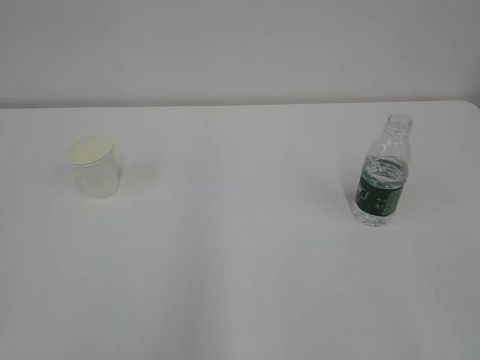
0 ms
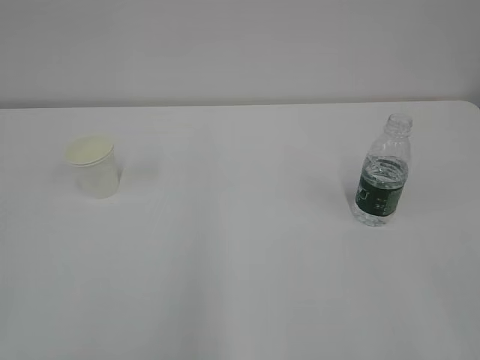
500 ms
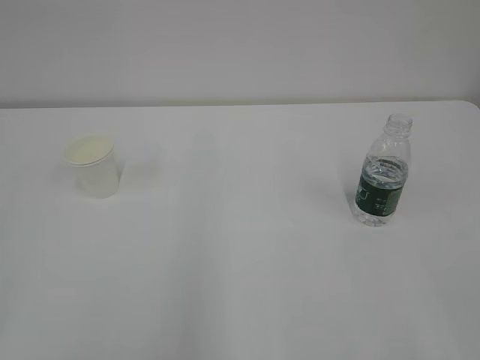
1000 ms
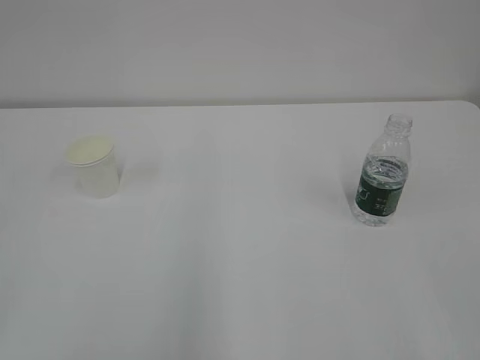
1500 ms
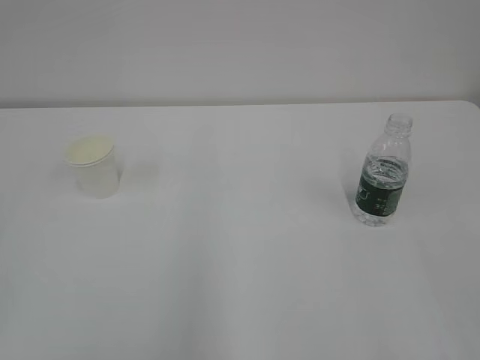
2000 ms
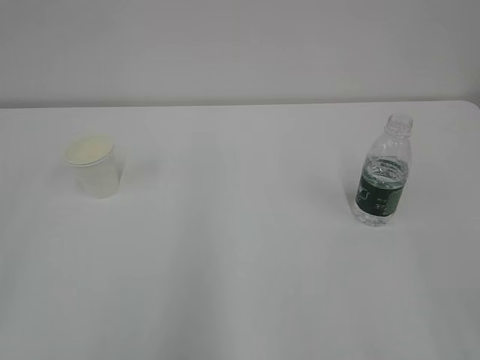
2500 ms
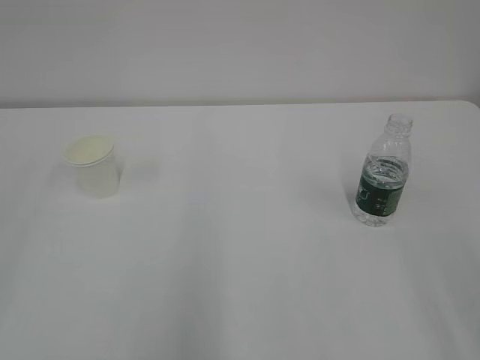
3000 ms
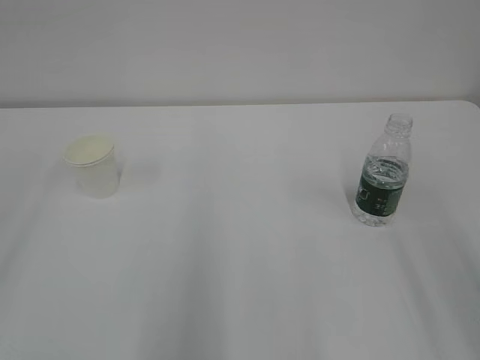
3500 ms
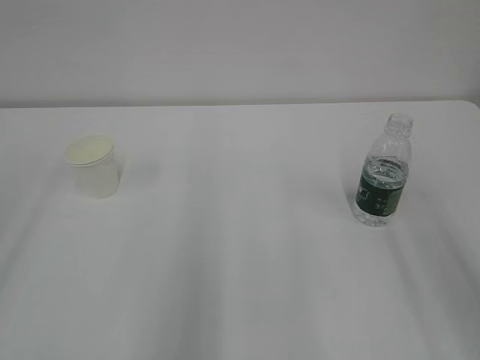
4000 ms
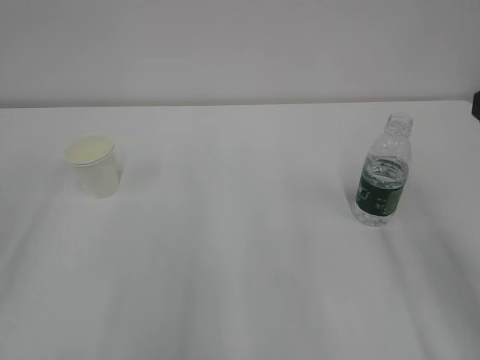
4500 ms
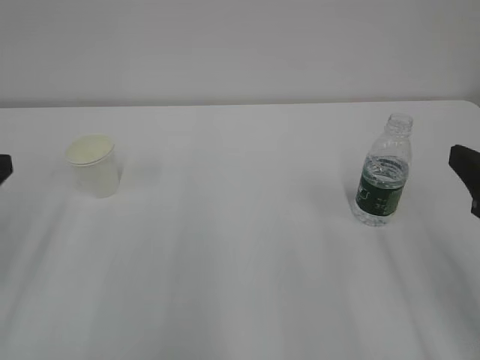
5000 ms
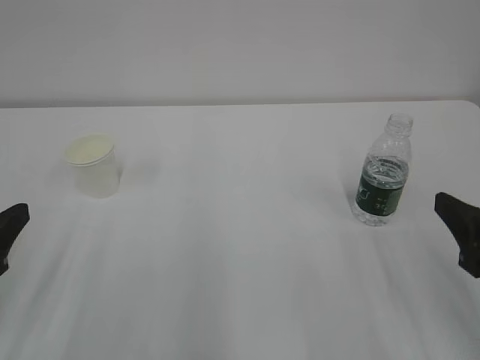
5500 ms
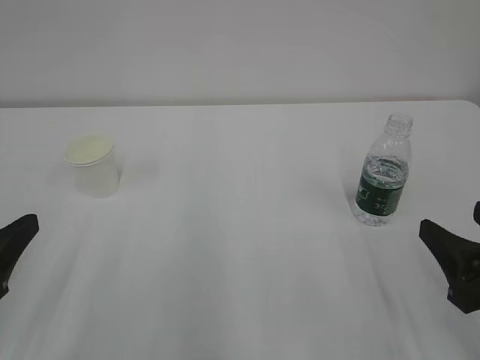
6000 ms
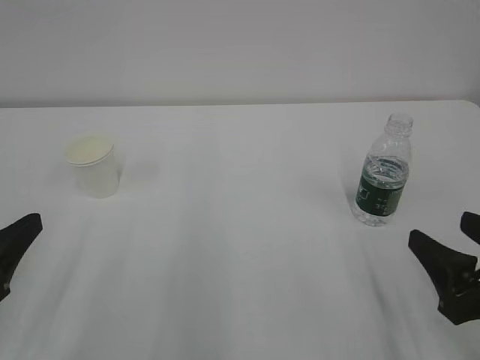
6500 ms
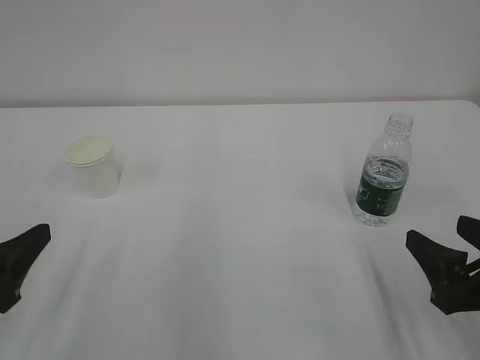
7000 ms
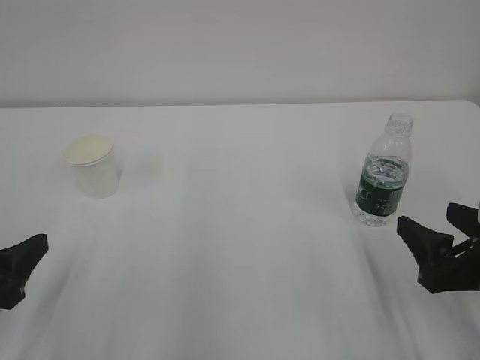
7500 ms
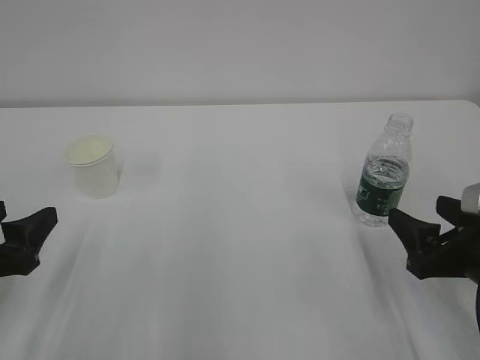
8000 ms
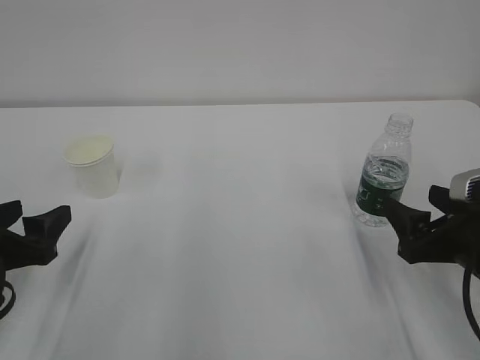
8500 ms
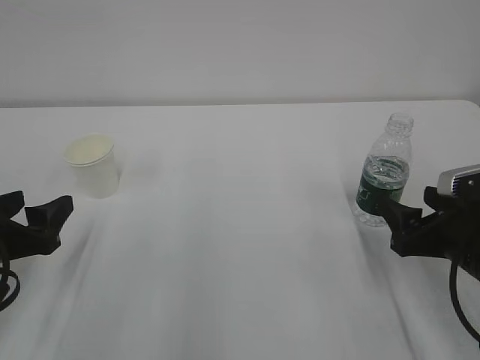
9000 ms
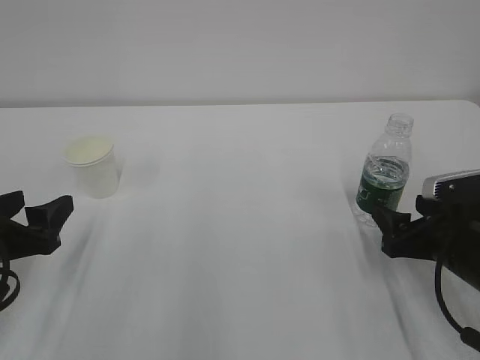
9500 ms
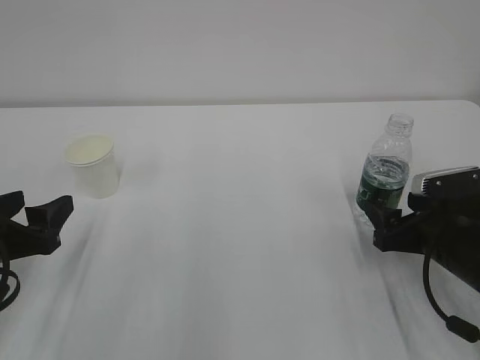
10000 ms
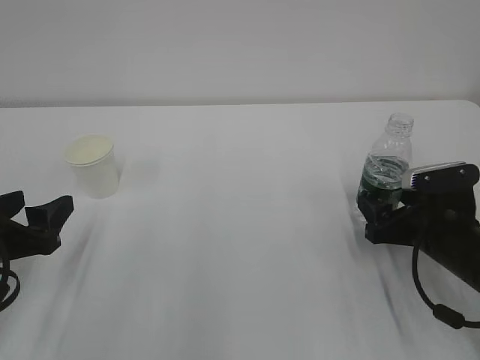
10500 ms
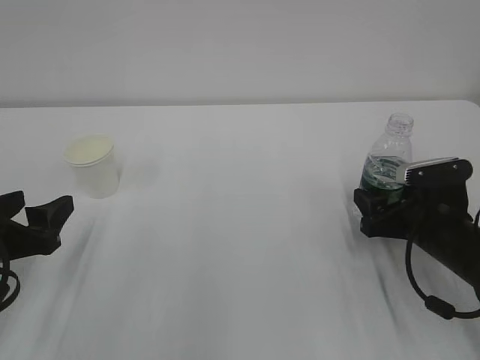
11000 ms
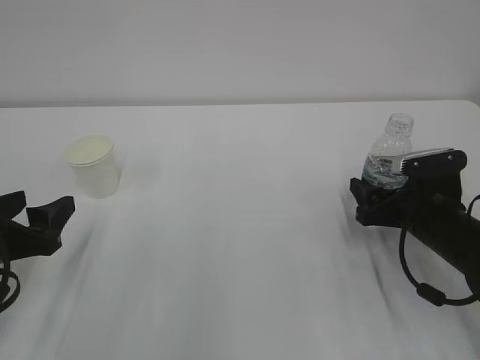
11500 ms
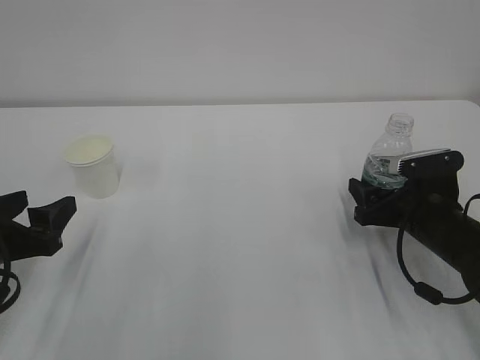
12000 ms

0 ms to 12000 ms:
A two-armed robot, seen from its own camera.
4000 ms to 6000 ms: Both grippers move downward, about 15 cm.
6000 ms to 8000 ms: The right gripper goes some 5 cm forward.
8000 ms to 10000 ms: The right gripper goes some 5 cm forward.
10000 ms to 12000 ms: The grippers move only a little.

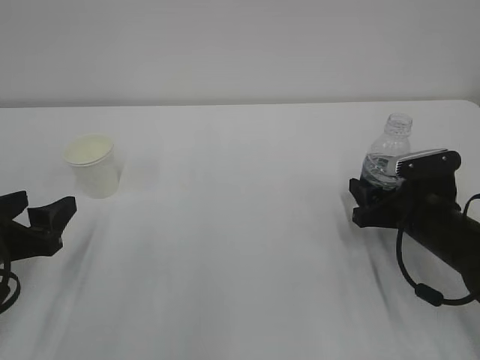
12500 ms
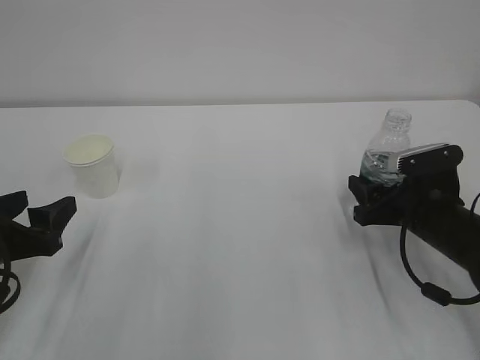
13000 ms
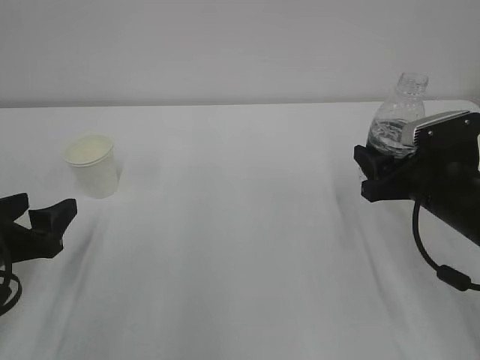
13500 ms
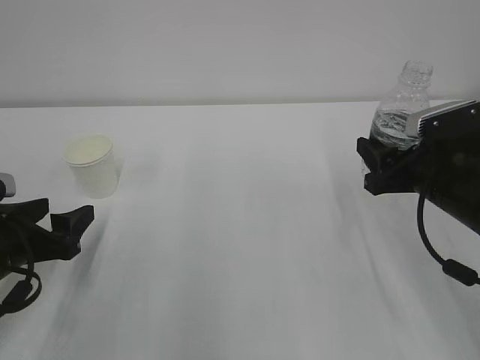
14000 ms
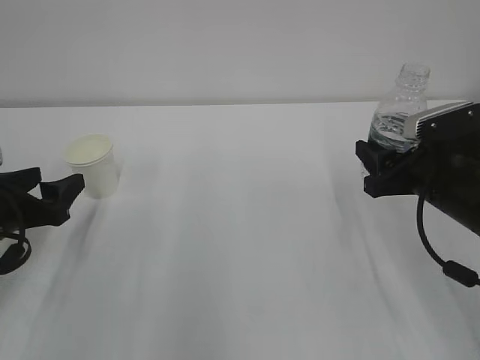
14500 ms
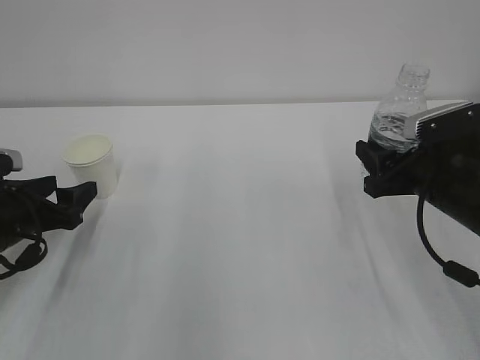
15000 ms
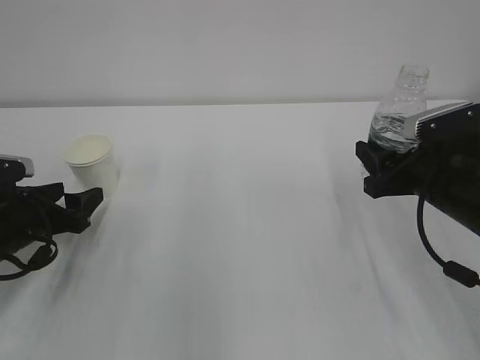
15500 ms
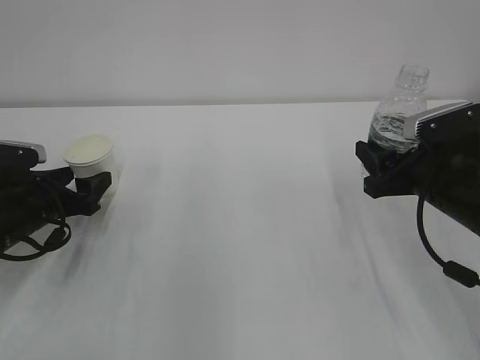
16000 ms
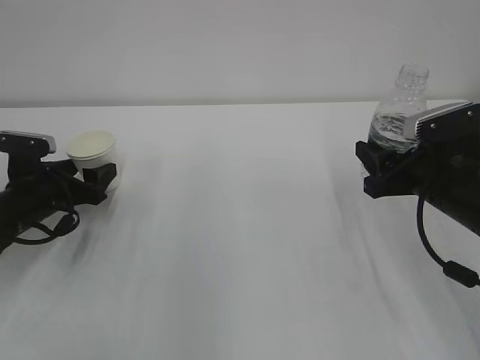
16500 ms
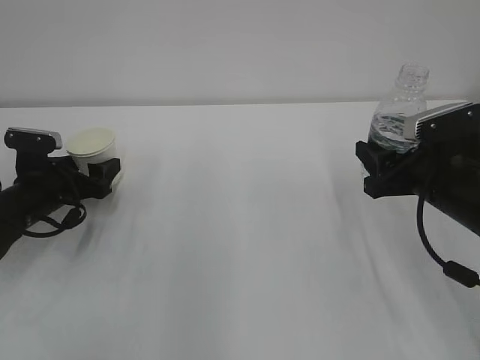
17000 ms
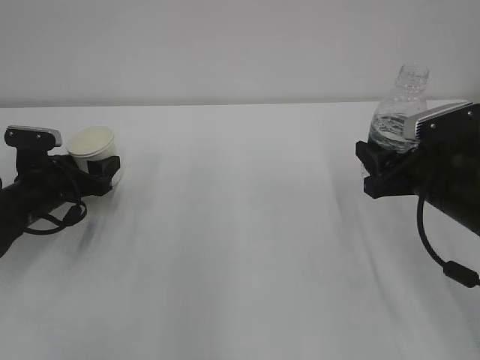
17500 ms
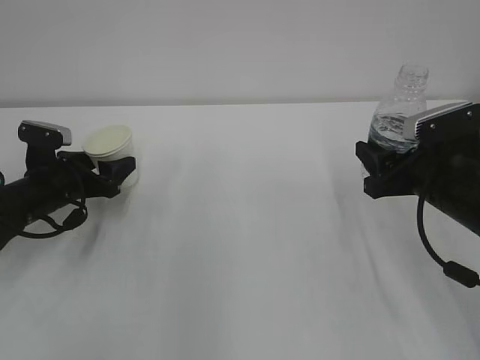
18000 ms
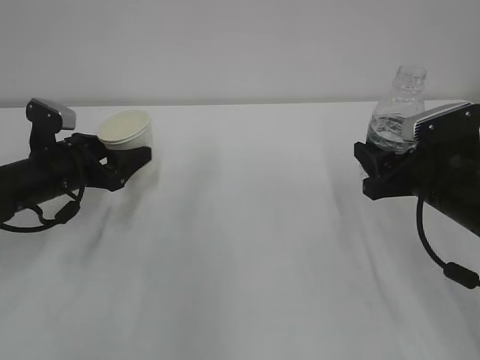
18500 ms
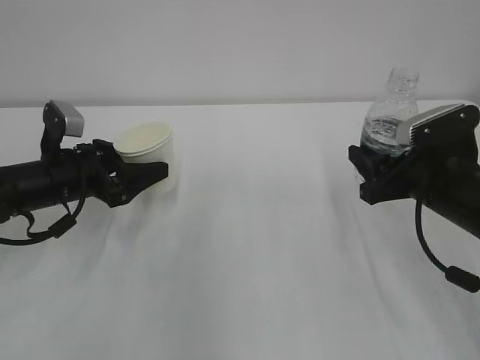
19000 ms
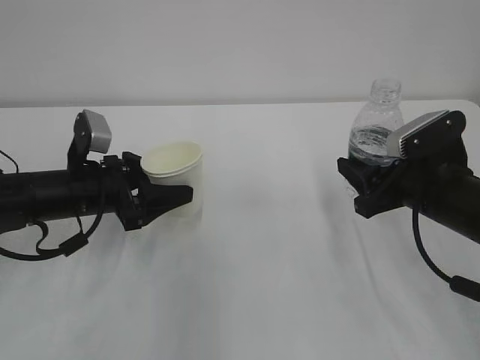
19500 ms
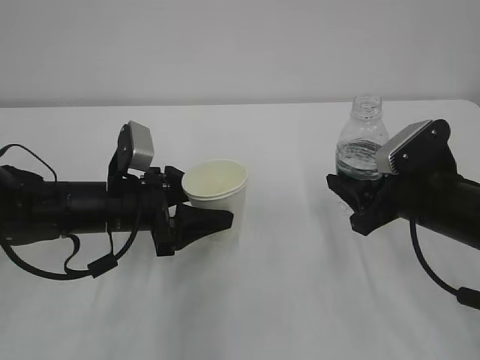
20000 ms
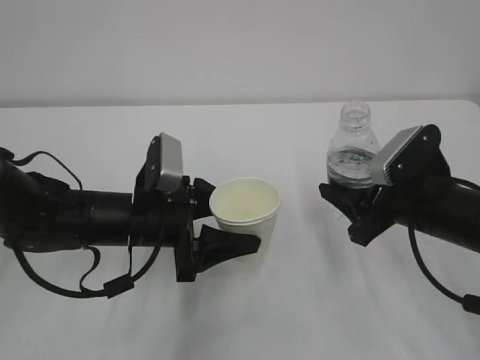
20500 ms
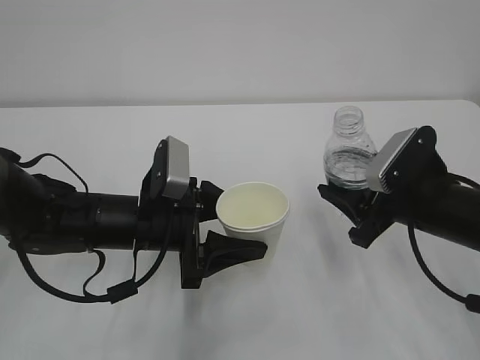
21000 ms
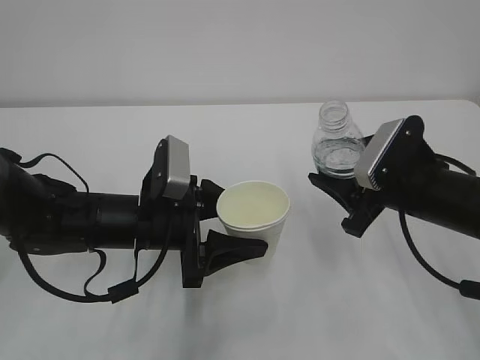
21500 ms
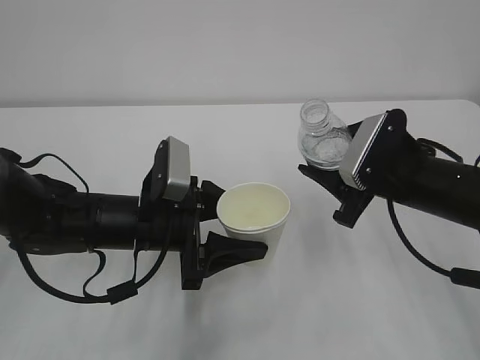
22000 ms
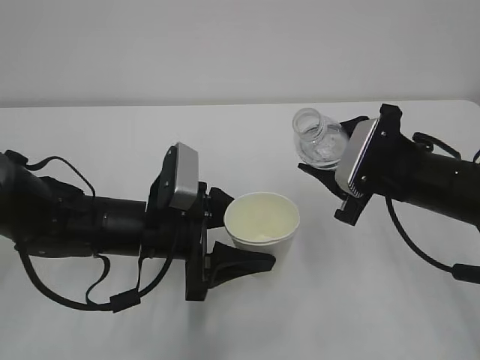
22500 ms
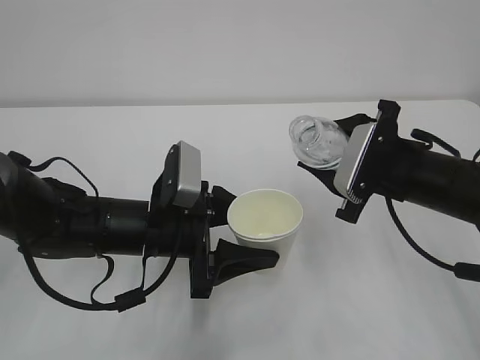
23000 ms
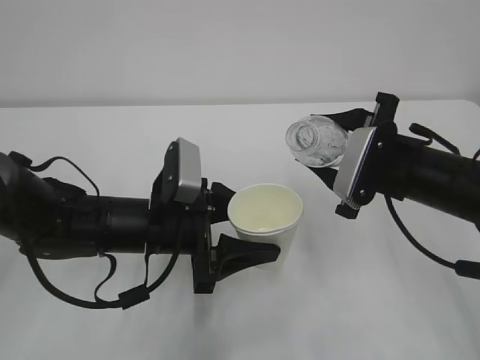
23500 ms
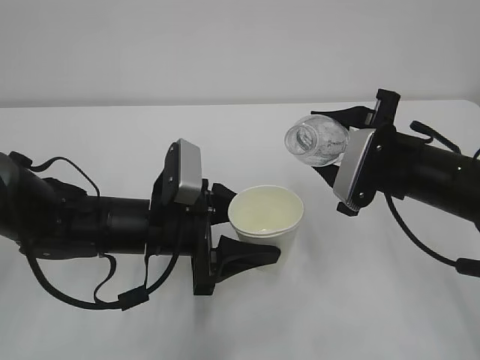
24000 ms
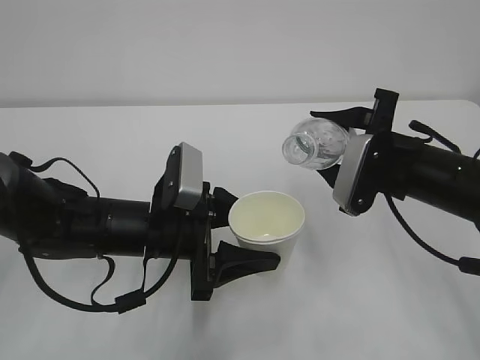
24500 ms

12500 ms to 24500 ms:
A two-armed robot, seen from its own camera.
12500 ms to 14500 ms: The left gripper moves forward, approximately 5 cm. Meanwhile the right gripper shifts about 5 cm upward.
14500 ms to 16500 ms: The left gripper travels forward by approximately 10 cm.
16500 ms to 18500 ms: The left gripper ends up some 5 cm from where it was, and closes.
18500 ms to 20500 ms: The left gripper is displaced to the right and backward by some 15 cm.

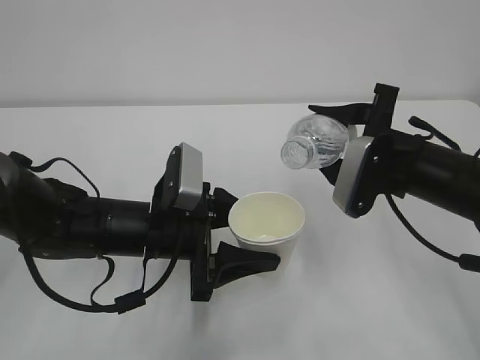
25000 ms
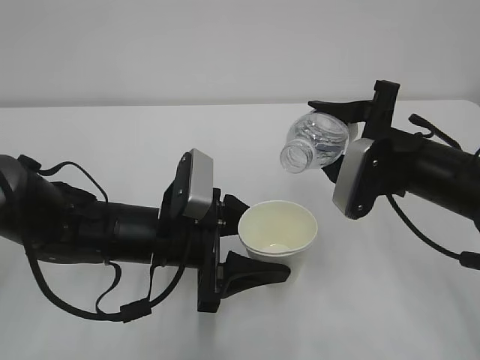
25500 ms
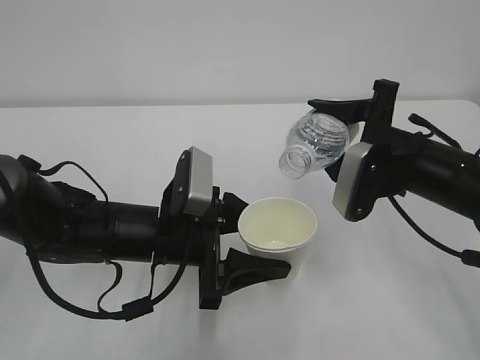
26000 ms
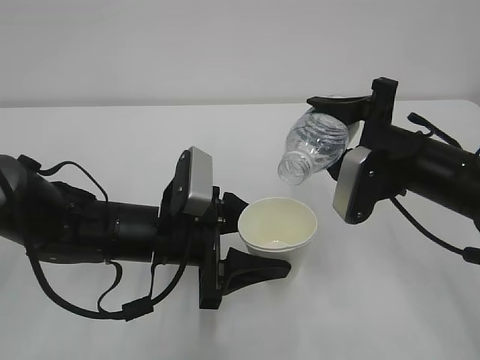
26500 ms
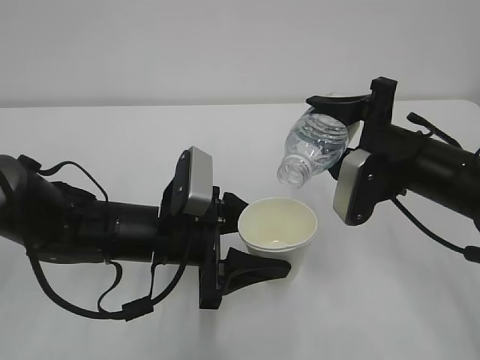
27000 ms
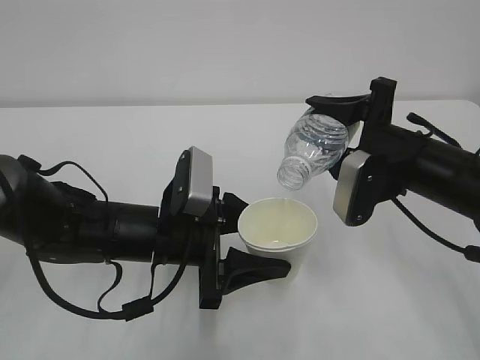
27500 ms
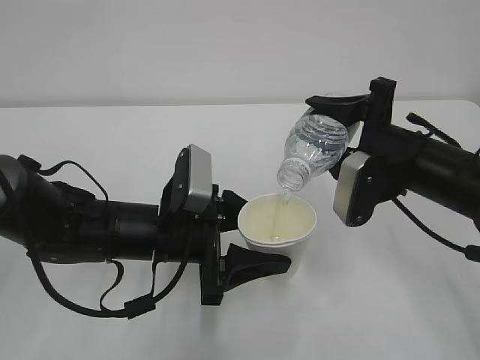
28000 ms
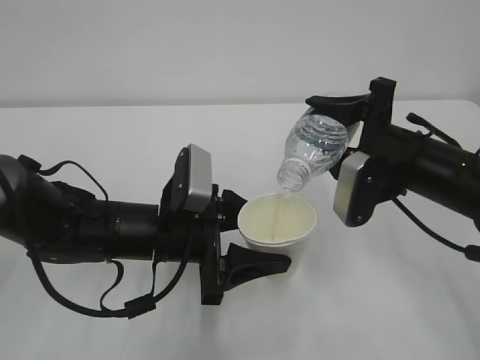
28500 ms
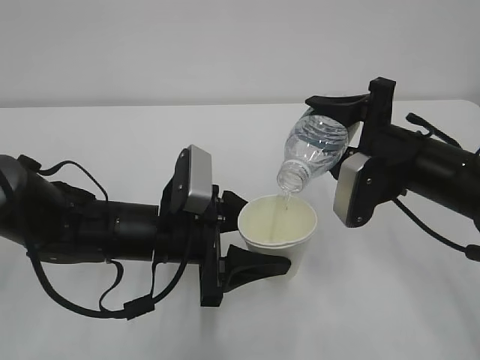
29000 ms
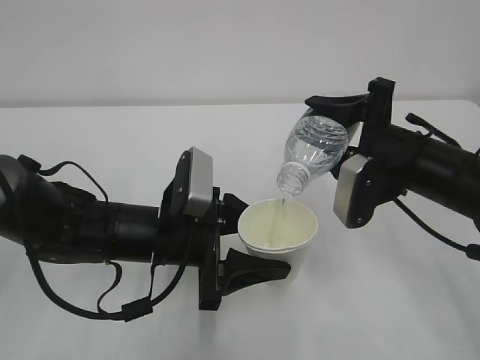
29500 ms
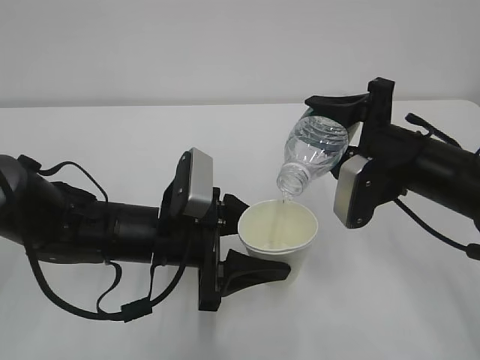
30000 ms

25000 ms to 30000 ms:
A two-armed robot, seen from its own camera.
25000 ms to 27500 ms: The grippers move only a little.
27500 ms to 30000 ms: Both grippers stay put.
